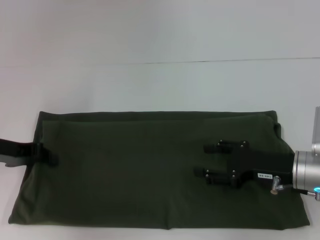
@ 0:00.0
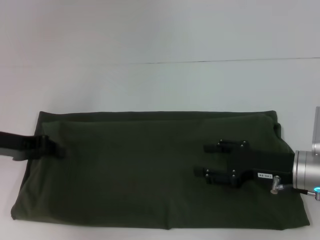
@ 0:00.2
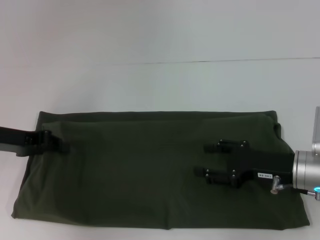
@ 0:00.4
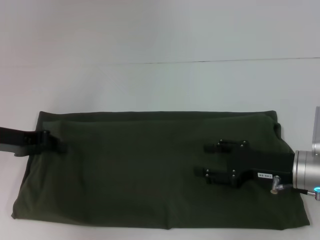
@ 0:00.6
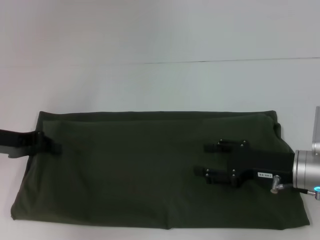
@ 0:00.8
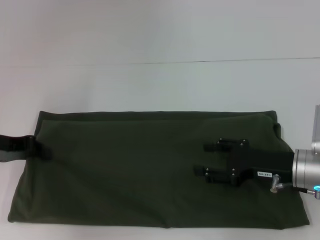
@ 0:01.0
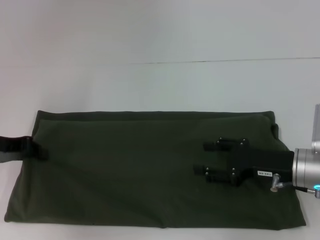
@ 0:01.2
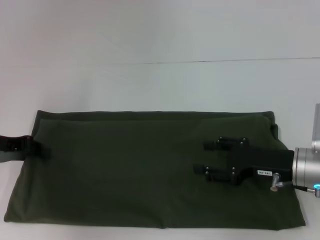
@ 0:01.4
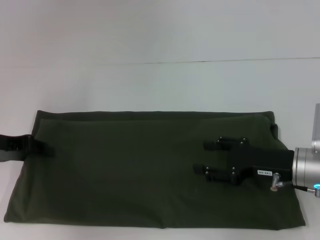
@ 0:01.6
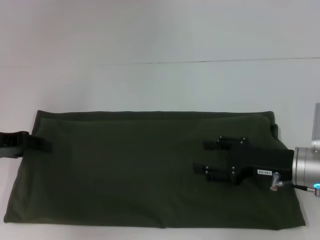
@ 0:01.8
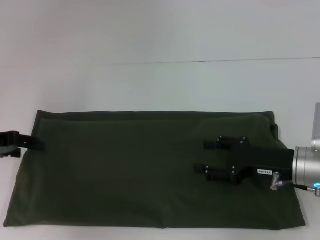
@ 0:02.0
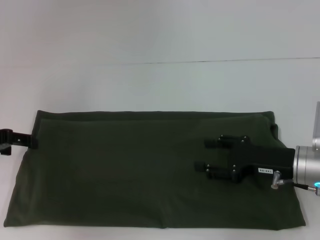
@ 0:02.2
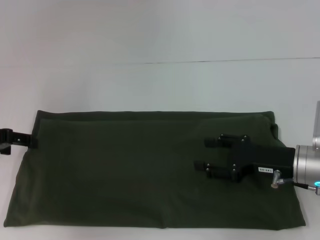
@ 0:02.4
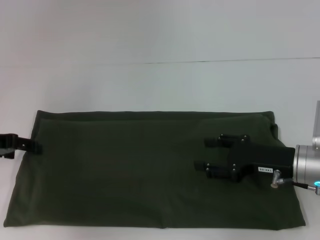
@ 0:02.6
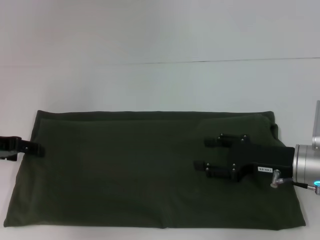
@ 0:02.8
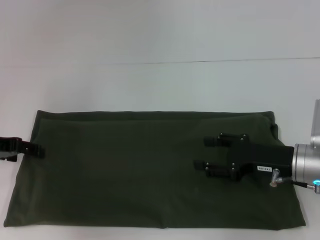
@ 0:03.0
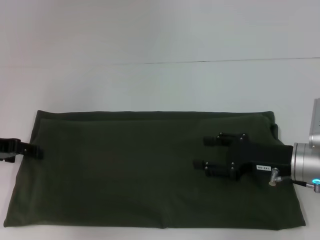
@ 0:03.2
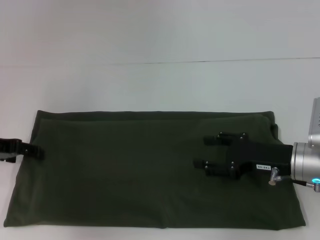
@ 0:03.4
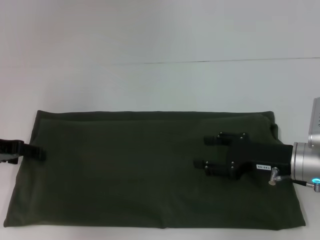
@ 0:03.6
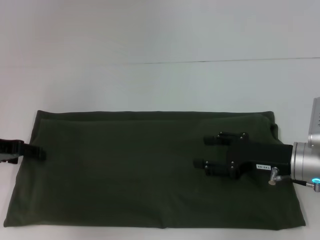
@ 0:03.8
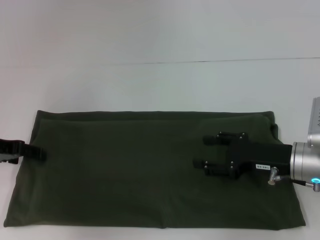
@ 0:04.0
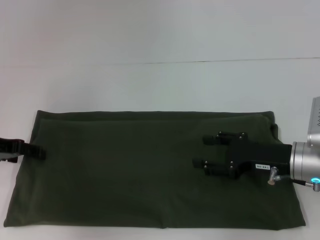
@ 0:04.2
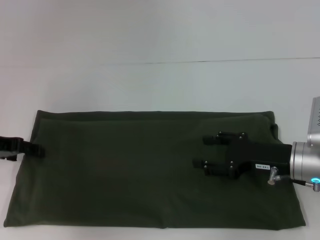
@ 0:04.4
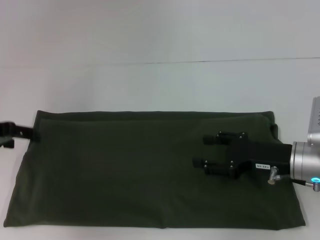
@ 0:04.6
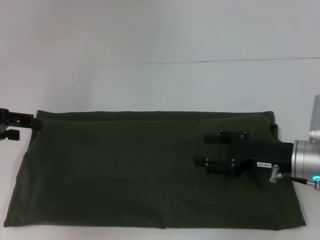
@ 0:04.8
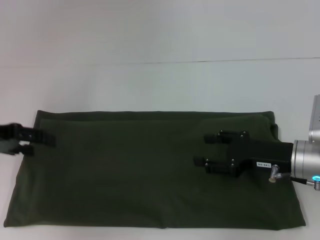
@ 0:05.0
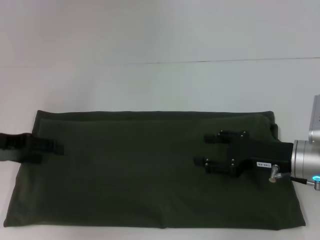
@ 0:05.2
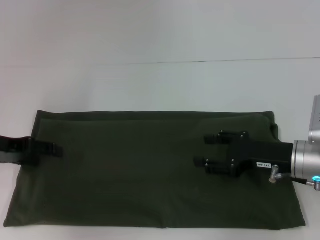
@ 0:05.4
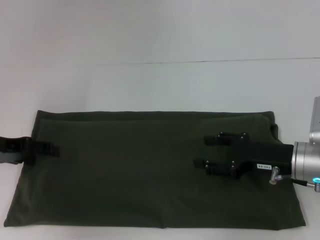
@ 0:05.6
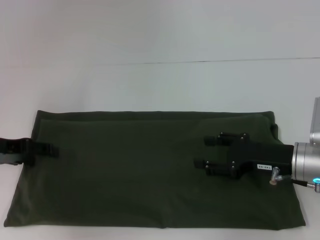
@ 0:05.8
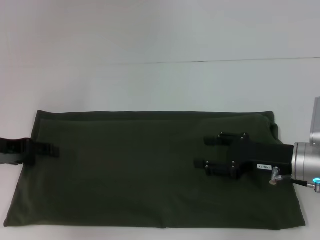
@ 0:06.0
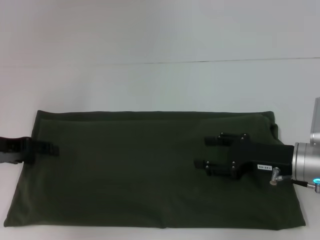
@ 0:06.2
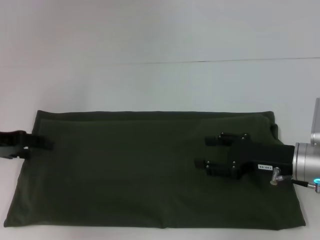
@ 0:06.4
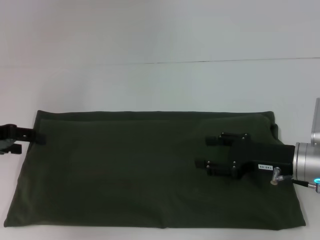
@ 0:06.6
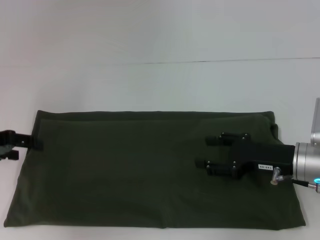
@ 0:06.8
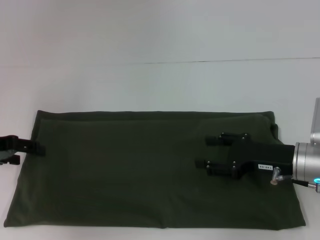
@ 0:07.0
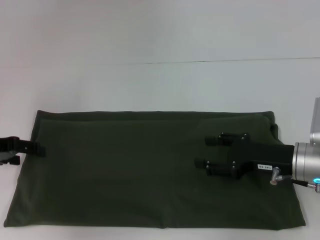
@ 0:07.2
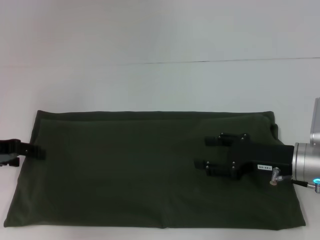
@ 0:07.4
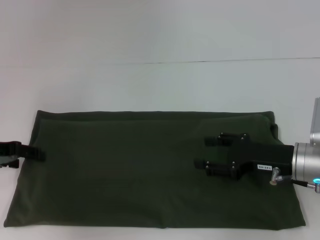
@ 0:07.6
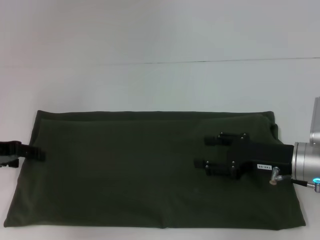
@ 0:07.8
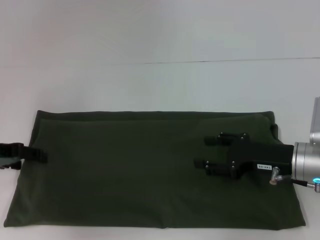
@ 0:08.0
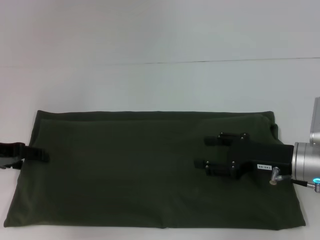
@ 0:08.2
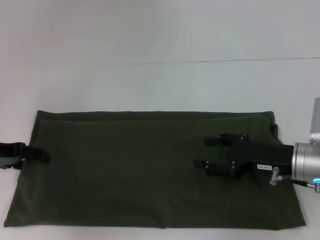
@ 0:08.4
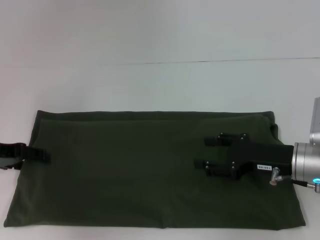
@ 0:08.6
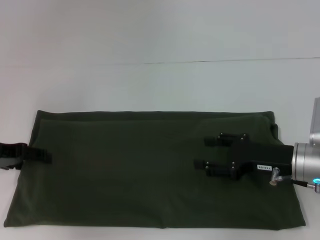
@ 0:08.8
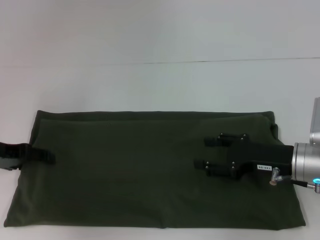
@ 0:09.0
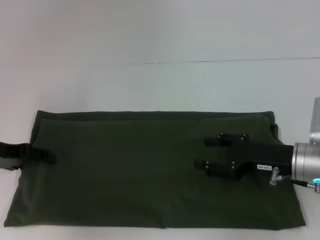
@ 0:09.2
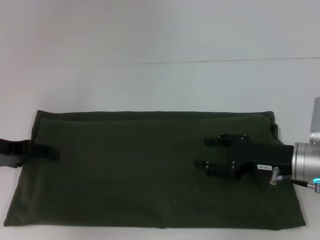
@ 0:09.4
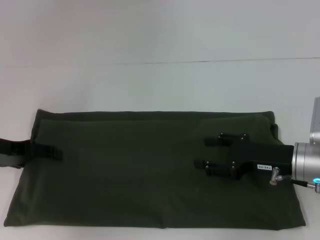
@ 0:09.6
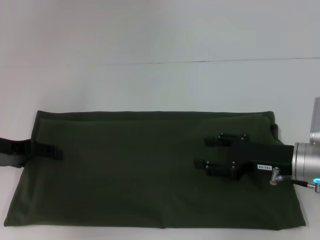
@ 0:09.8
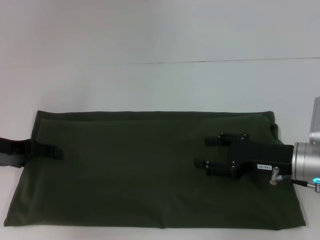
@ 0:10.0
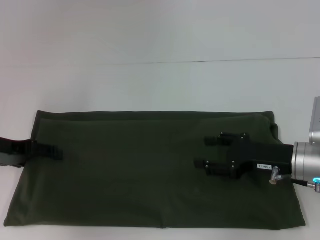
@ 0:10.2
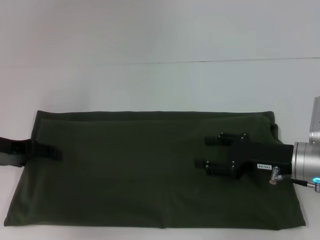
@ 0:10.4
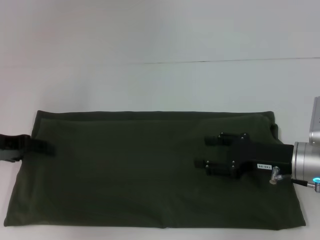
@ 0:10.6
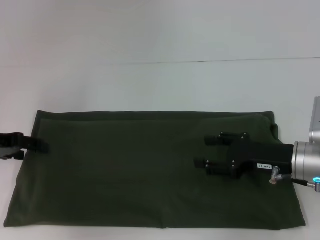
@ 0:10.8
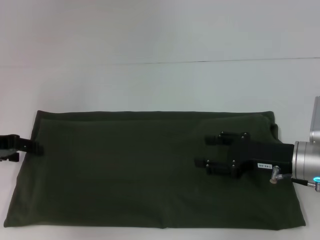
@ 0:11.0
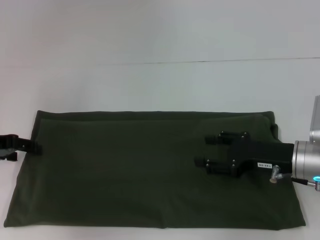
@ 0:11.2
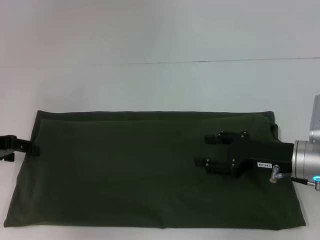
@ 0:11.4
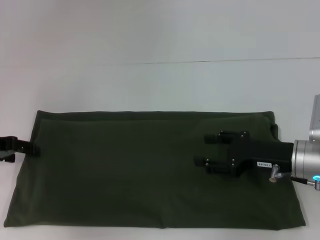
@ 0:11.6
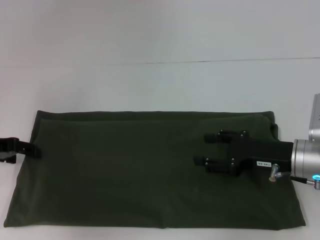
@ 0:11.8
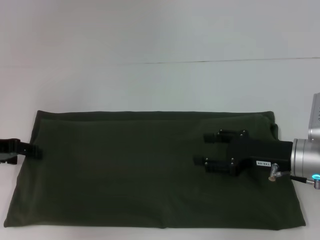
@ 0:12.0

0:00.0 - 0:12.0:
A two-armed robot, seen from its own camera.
0:00.0 - 0:01.6: The grippers make only small movements.
0:01.6 - 0:03.0: The left gripper opens.
0:03.0 - 0:04.4: Both grippers stay about where they are.
0:04.4 - 0:06.0: There are only small adjustments of the grippers.
0:07.6 - 0:09.0: The two grippers keep their place.
0:09.0 - 0:10.4: Both grippers stay put.
0:10.4 - 0:12.0: The grippers move only a little.

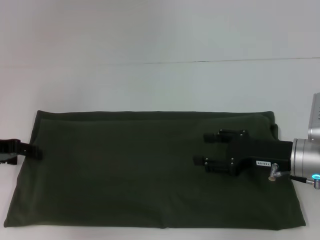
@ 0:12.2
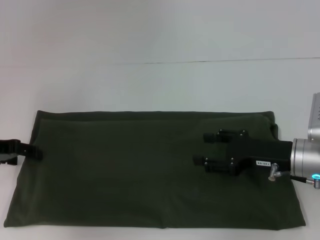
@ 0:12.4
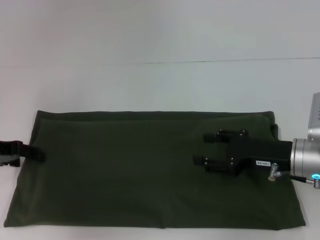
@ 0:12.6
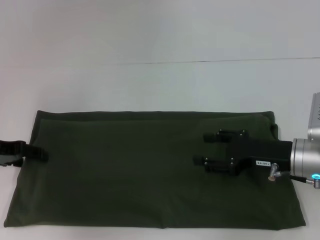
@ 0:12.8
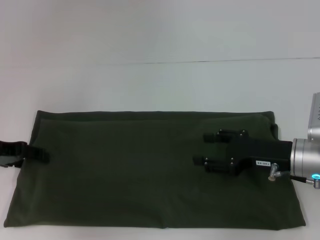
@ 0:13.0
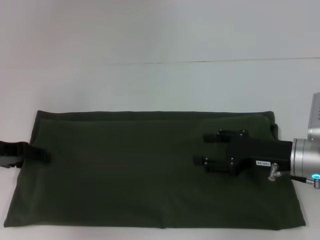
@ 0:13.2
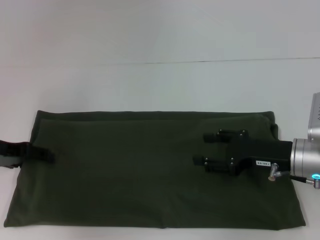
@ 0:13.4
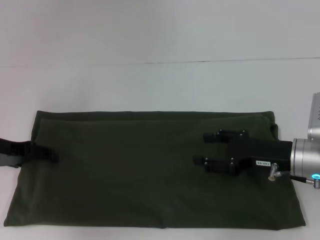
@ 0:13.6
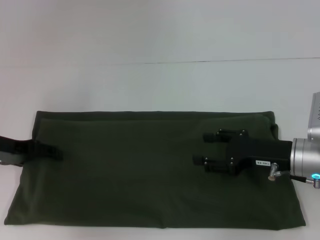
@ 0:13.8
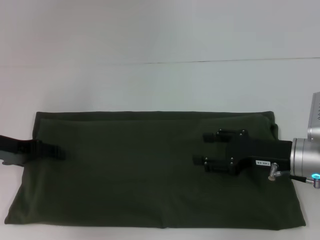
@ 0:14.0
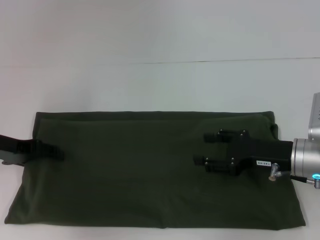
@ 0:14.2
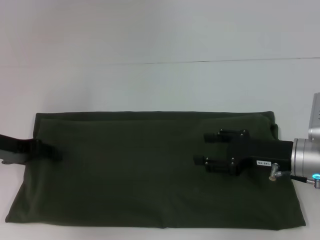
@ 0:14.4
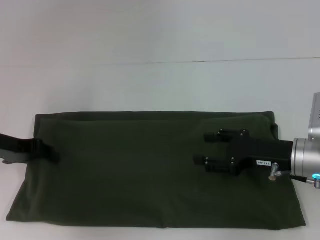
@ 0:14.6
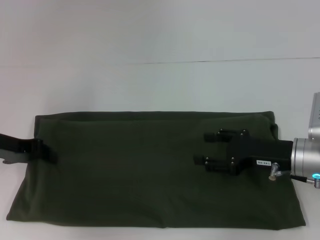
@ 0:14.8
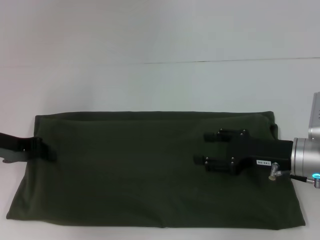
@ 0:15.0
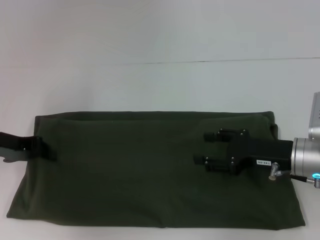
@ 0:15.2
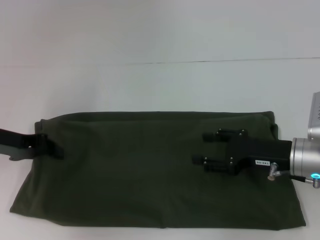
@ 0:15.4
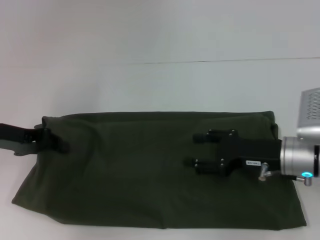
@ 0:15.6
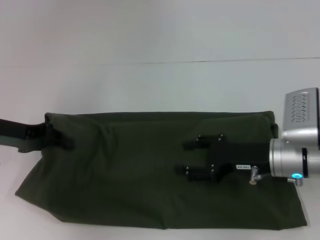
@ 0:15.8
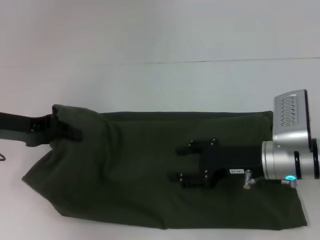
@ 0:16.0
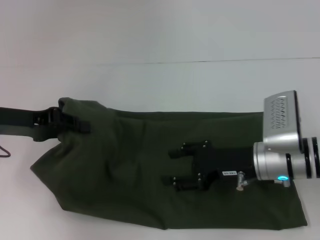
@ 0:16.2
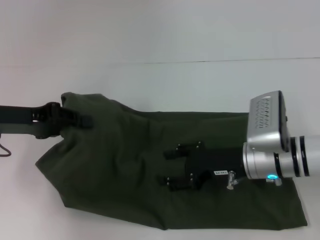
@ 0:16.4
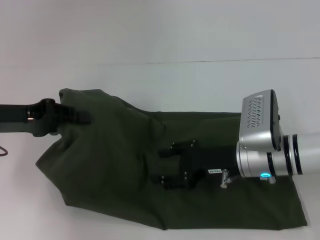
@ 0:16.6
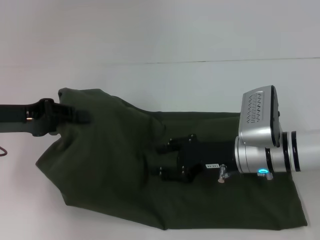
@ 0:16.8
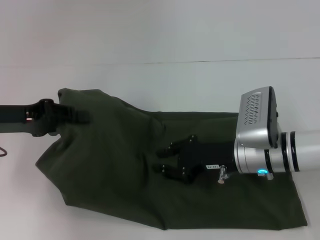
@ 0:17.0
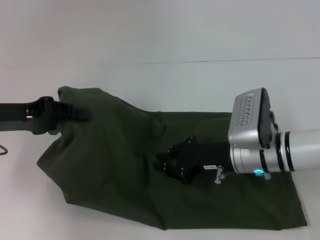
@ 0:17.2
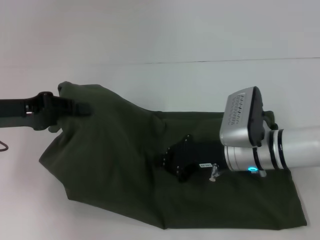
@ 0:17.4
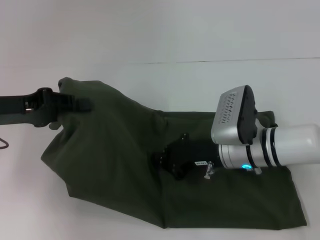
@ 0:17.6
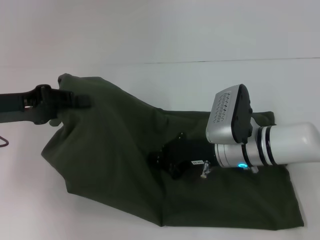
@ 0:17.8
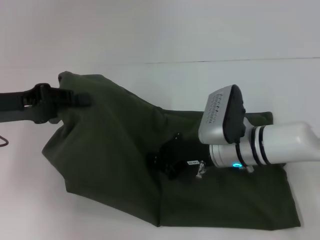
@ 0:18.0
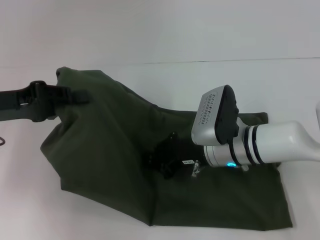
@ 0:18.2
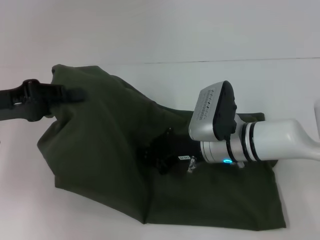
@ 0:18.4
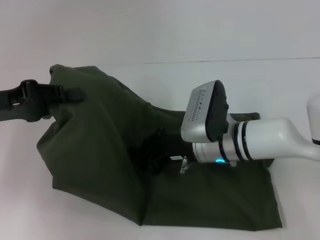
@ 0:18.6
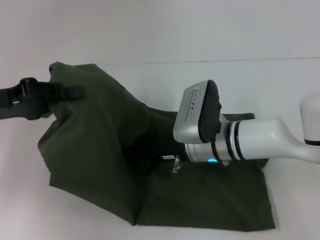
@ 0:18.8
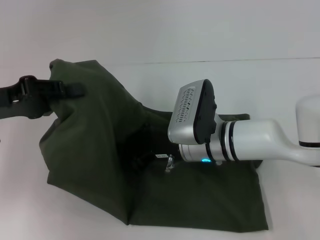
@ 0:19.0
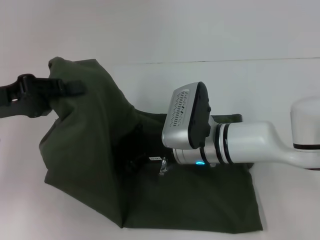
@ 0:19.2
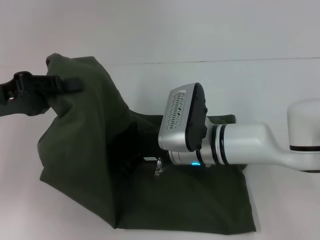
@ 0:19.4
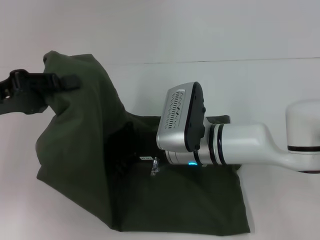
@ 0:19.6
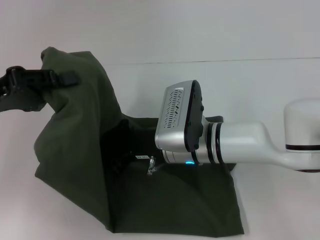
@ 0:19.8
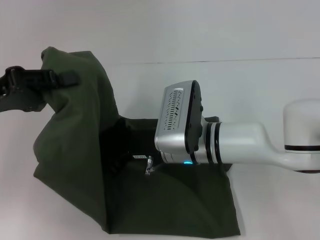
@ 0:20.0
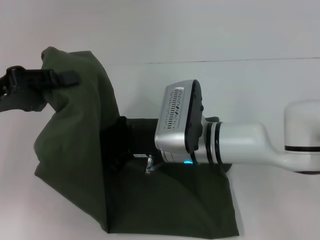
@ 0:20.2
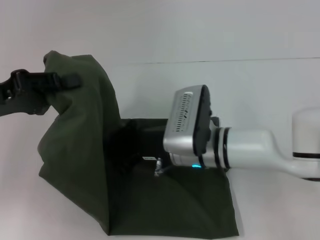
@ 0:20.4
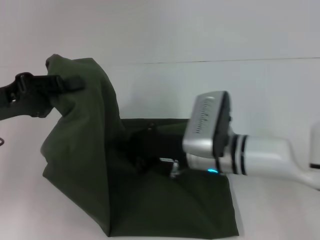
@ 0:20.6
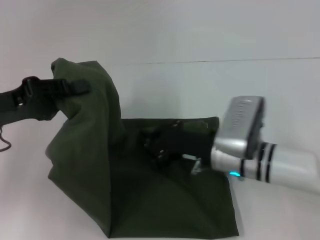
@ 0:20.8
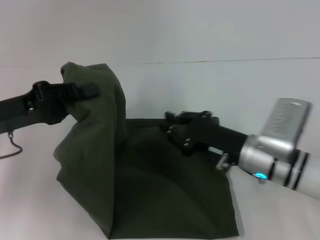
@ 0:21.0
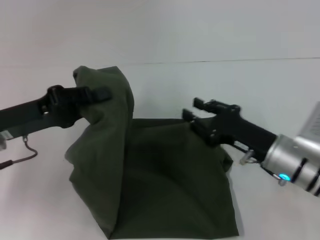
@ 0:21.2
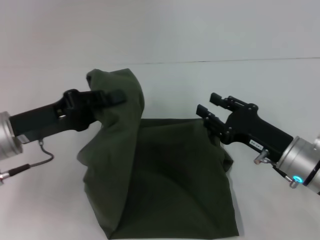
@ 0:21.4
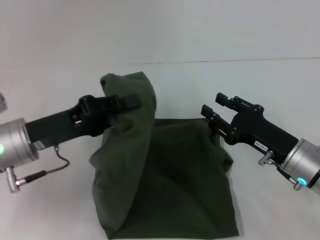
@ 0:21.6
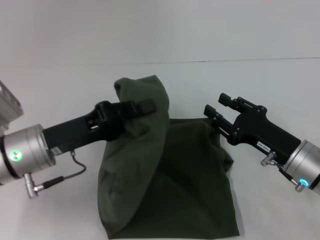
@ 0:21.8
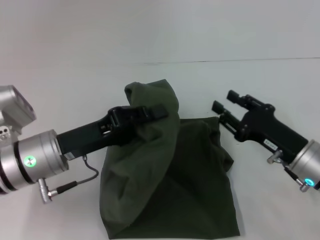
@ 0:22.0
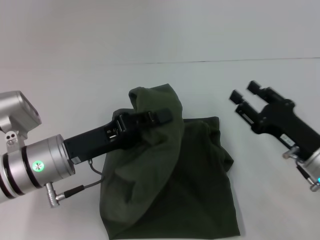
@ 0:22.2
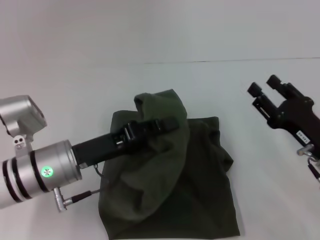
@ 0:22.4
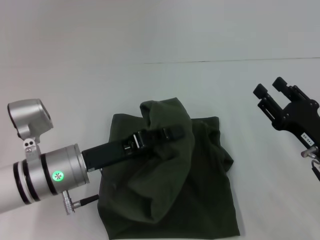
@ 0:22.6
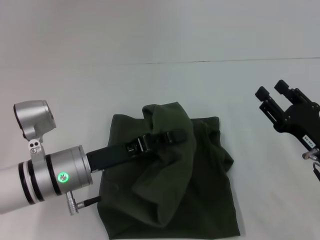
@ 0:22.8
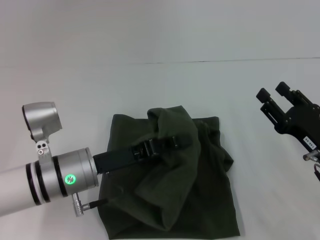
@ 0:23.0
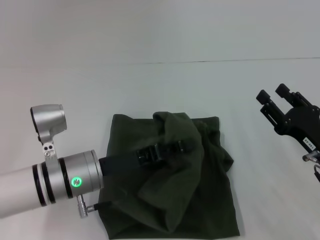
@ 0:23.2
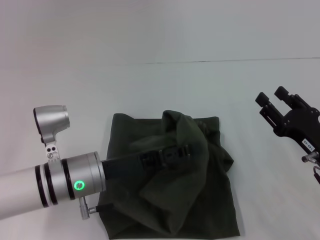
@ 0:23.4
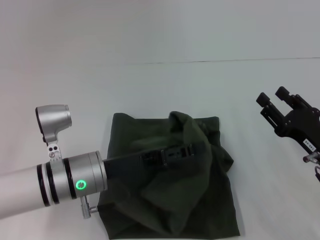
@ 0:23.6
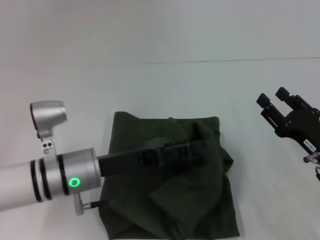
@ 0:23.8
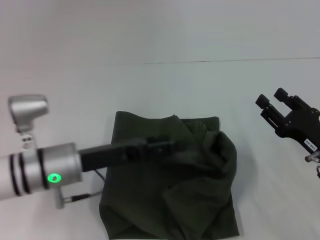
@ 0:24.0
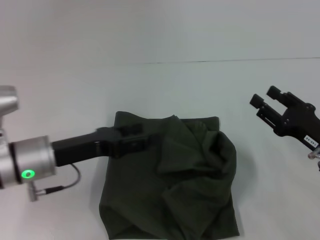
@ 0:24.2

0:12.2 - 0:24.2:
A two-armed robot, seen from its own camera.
0:12.2 - 0:13.8: There are only small adjustments of the grippers.
0:13.8 - 0:15.2: The left gripper closes its fingers.
0:15.2 - 0:16.6: The right gripper goes approximately 5 cm to the left.
0:16.6 - 0:18.2: The right gripper ends up some 5 cm from where it was, and closes.
0:18.2 - 0:19.8: The right gripper goes some 5 cm to the left.
0:19.8 - 0:21.2: The left gripper moves some 5 cm. Meanwhile the right gripper shifts roughly 15 cm to the right.
0:21.2 - 0:22.6: The left gripper moves to the right and downward, approximately 10 cm, while the right gripper travels to the right by approximately 5 cm, and opens.
0:22.6 - 0:24.2: The left gripper opens up.
